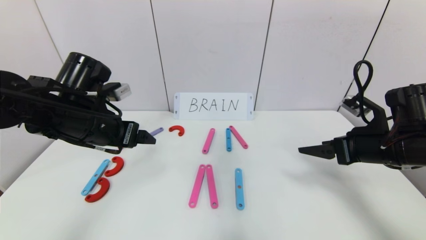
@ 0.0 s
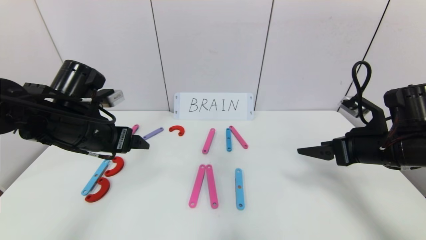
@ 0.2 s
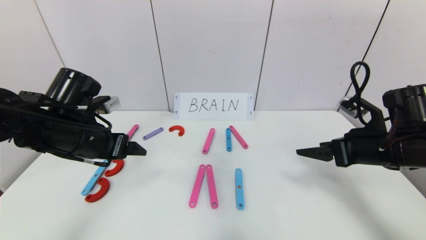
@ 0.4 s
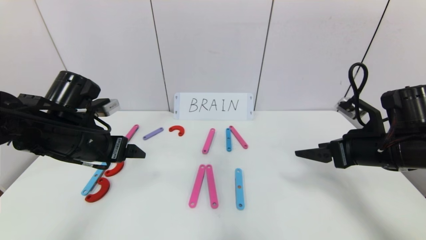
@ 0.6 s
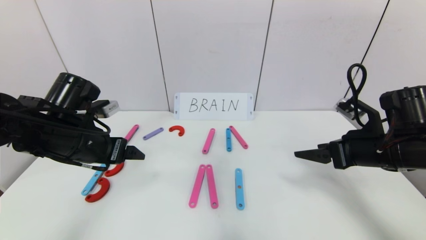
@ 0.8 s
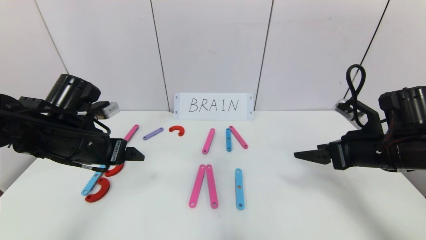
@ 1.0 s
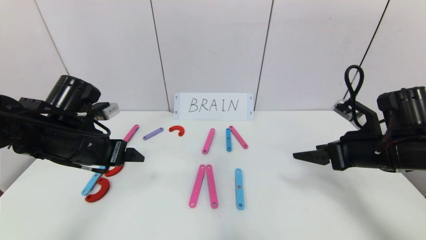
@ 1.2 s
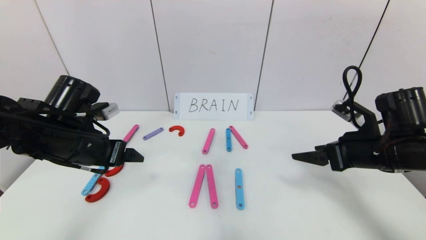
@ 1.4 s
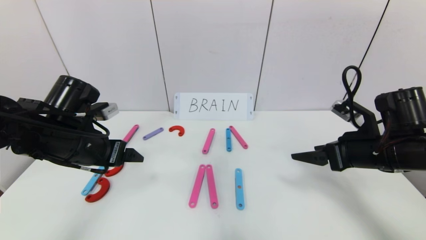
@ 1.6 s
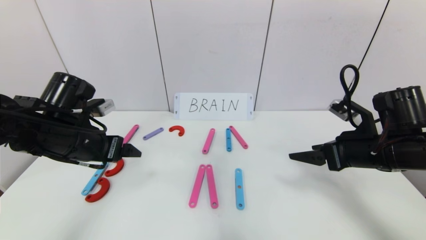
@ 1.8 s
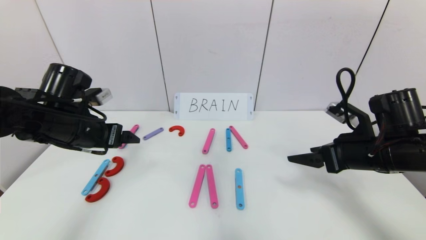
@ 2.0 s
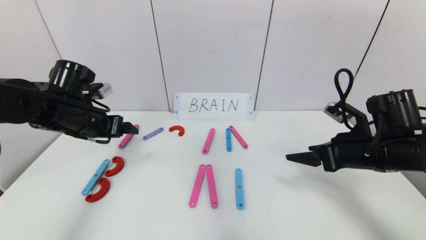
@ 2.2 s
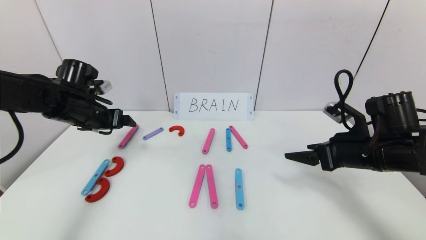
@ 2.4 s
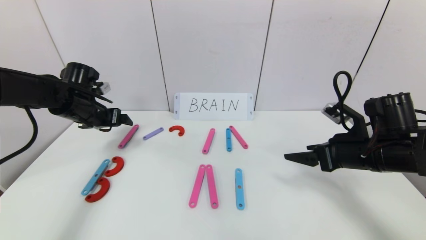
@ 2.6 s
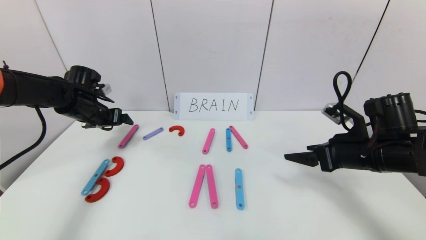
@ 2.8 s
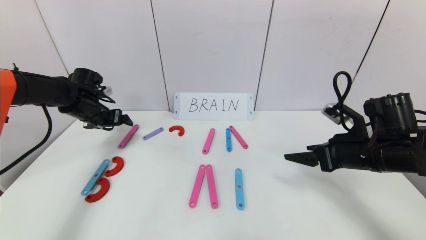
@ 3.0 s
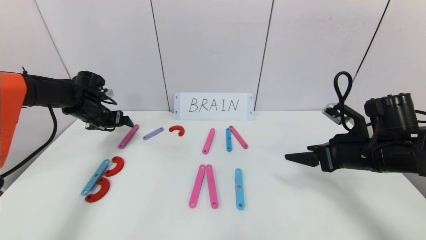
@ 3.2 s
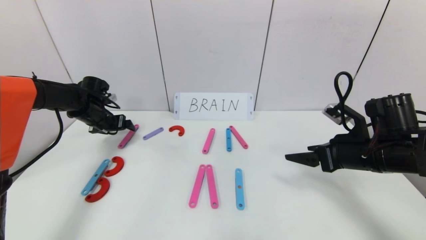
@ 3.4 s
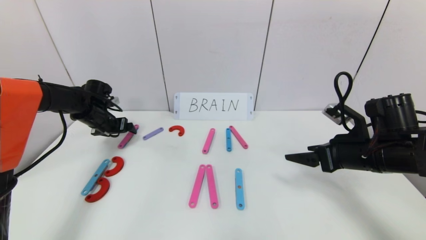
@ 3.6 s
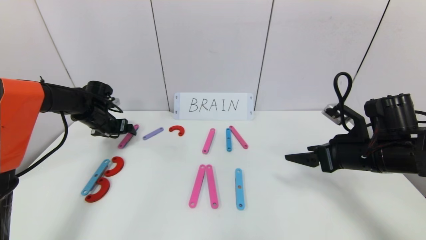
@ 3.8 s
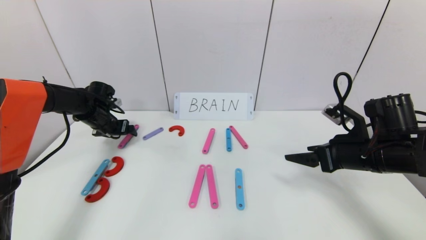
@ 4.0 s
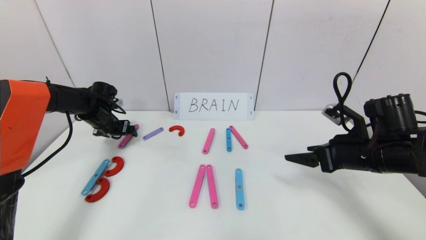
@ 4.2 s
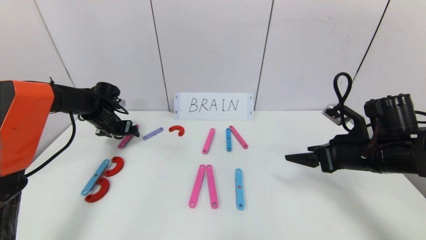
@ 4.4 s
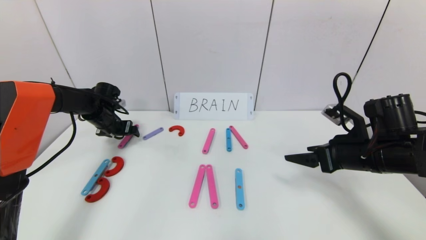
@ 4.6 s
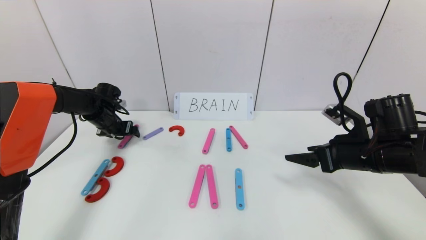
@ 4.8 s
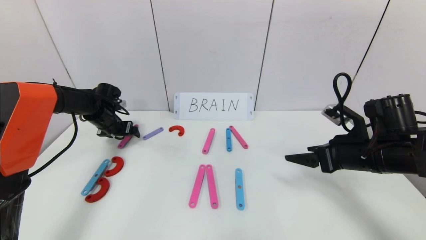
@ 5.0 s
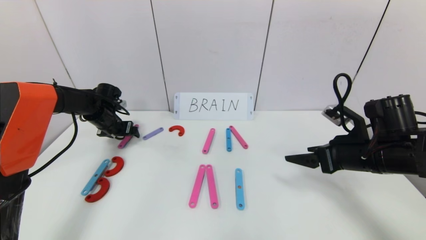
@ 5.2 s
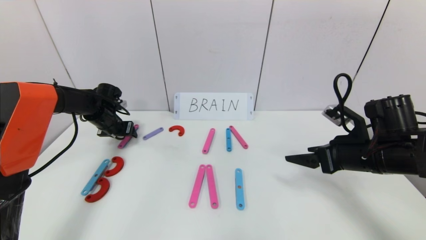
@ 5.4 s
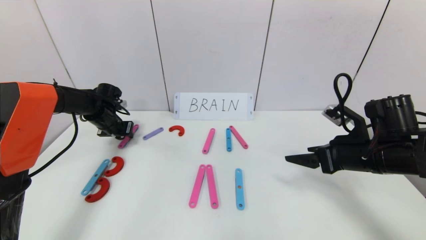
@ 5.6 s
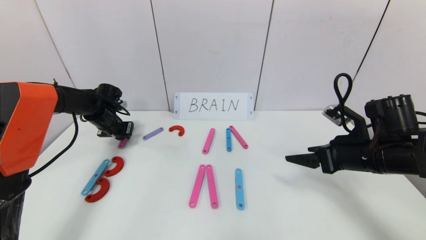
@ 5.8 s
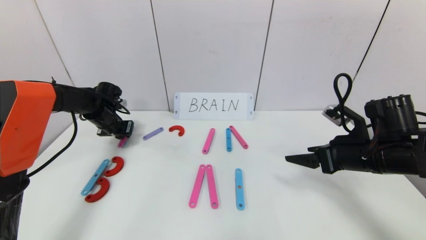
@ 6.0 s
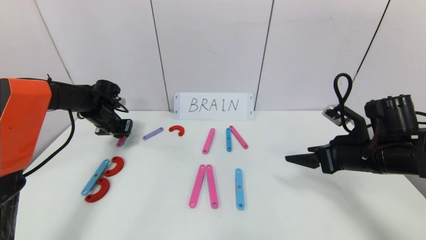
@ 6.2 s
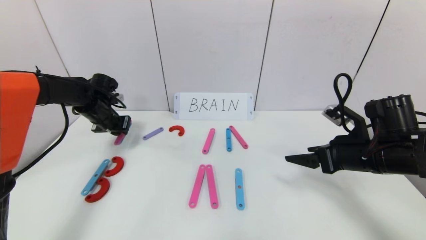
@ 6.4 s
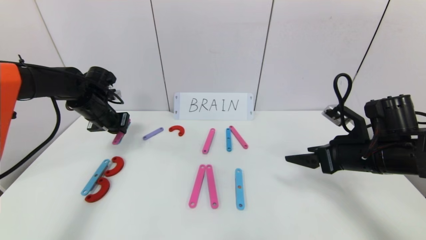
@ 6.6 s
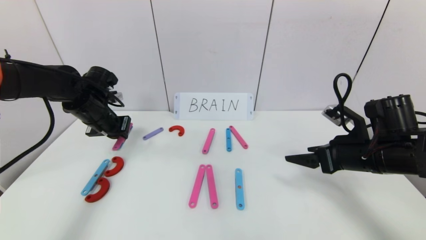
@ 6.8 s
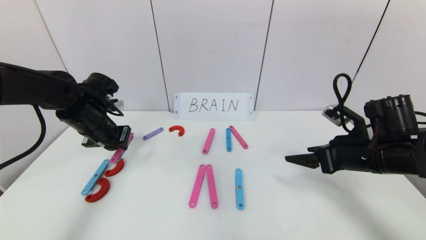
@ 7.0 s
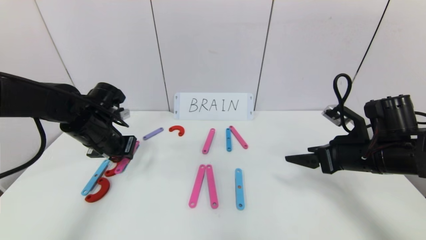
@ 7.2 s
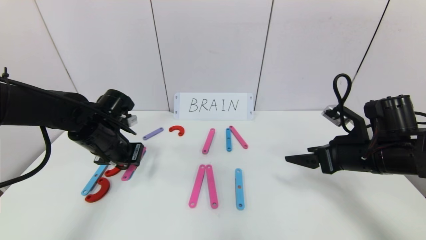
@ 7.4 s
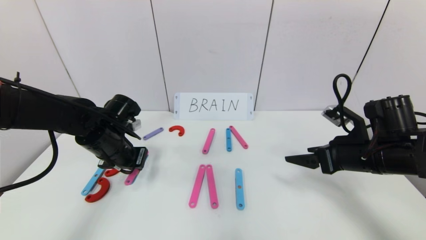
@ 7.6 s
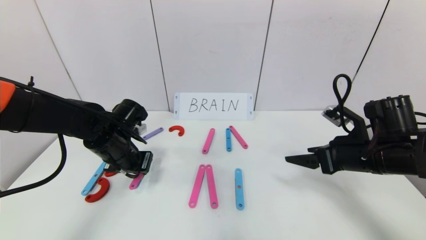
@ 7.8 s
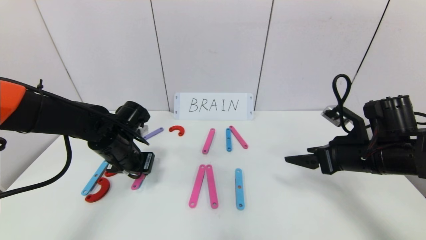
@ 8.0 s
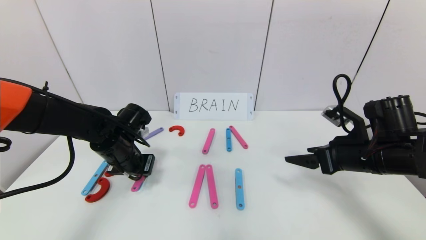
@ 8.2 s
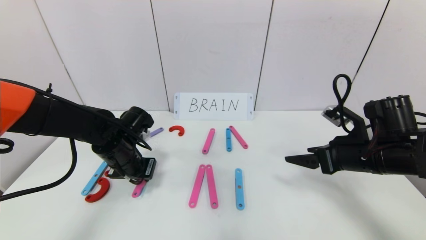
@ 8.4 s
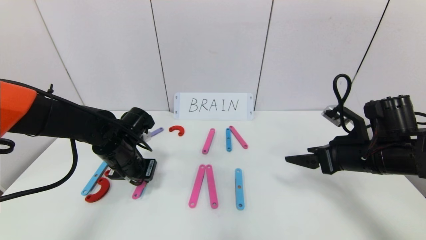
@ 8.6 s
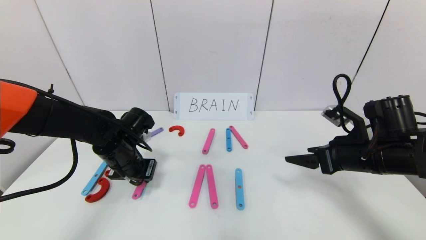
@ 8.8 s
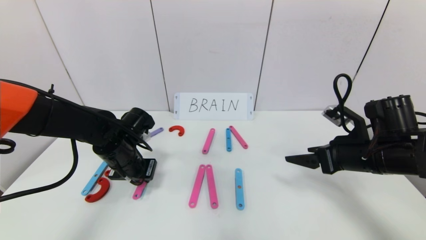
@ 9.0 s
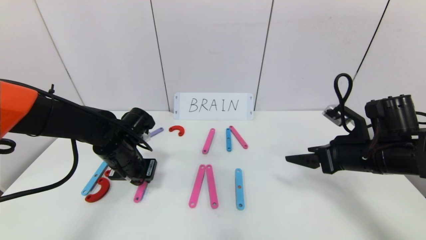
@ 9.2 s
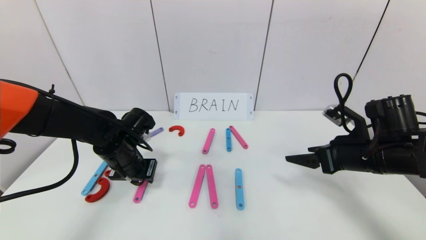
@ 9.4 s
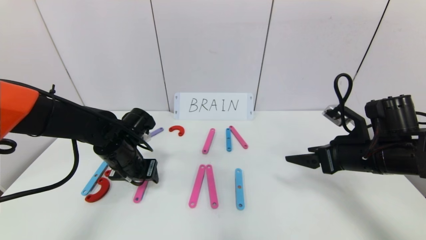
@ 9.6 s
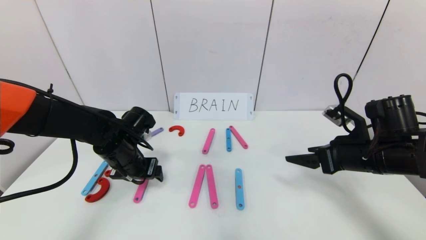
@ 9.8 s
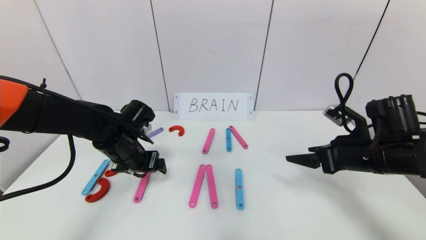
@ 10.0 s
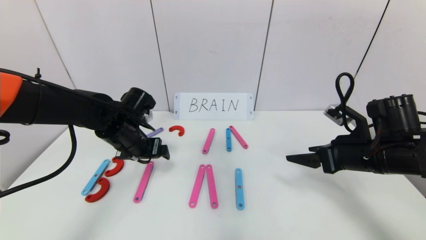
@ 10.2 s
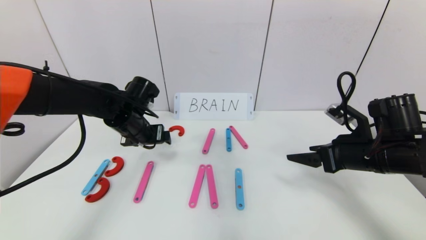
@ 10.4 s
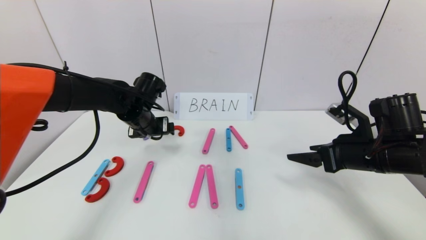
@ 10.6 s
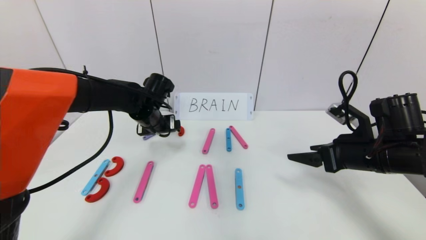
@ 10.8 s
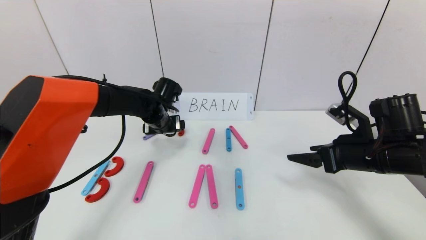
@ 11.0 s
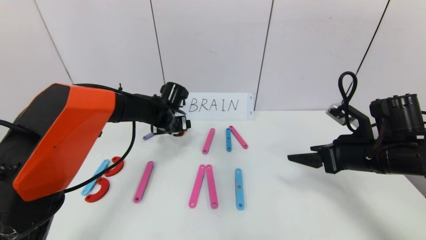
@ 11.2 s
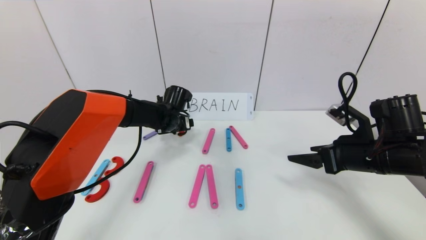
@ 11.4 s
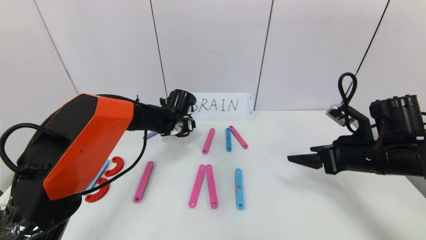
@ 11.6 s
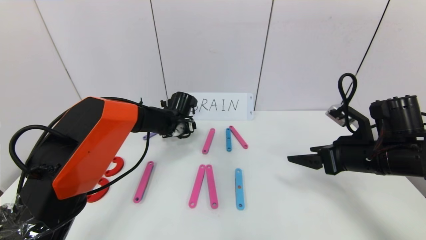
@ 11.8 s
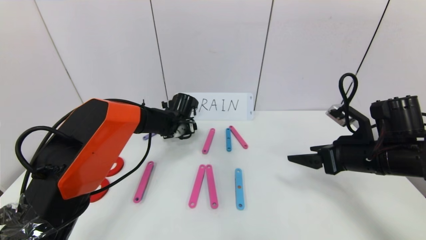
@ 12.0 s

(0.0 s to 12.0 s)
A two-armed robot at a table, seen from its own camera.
Task of the whole recording: rearrange the word baai as brain.
0.0 s - 1.6 s: There are only small adjustments of the grippers.
1.6 s - 3.0 s: The left gripper moves forward and to the left, about 20 cm.
3.0 s - 4.4 s: The left gripper ends up roughly 5 cm from where it was.
4.4 s - 6.0 s: The left gripper closes up.
6.0 s - 7.6 s: The left gripper goes approximately 20 cm backward and to the right.
7.6 s - 9.0 s: The grippers stay close to where they were, moving slightly.
9.0 s - 10.4 s: The left gripper shifts roughly 5 cm upward and forward, and opens up.
10.4 s - 12.0 s: The left gripper is displaced forward, downward and to the right by roughly 15 cm.

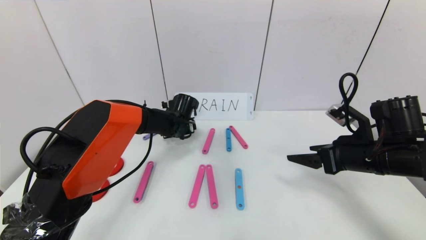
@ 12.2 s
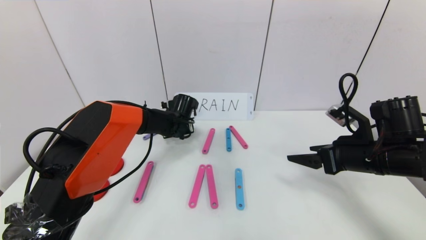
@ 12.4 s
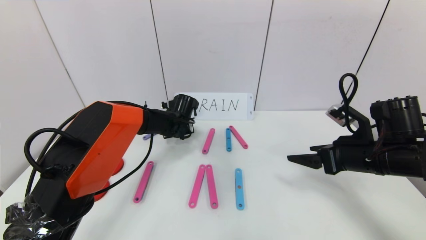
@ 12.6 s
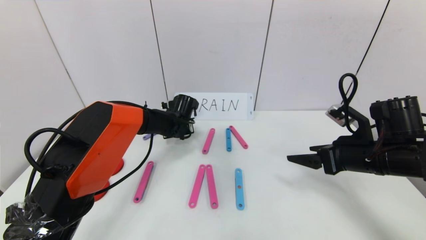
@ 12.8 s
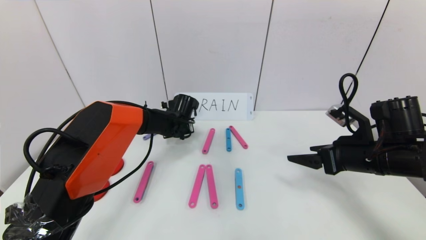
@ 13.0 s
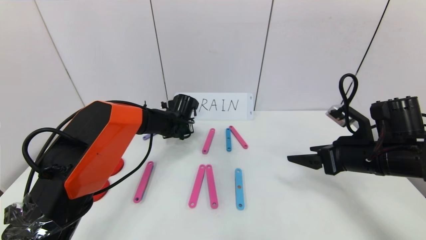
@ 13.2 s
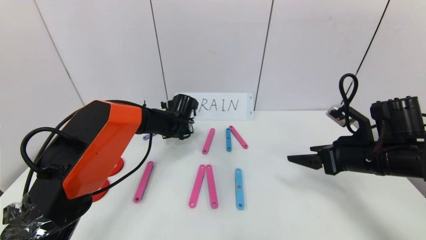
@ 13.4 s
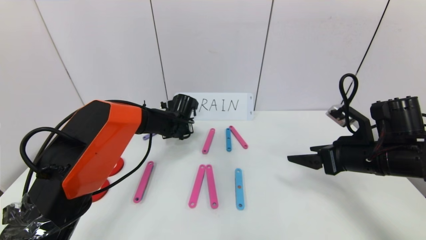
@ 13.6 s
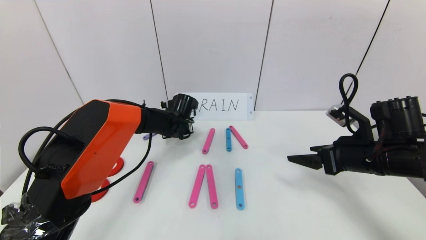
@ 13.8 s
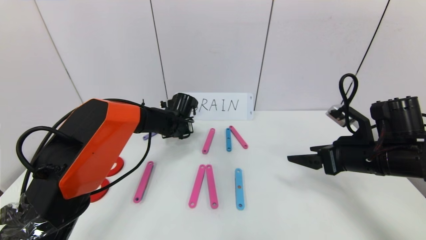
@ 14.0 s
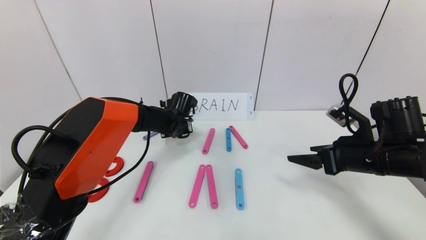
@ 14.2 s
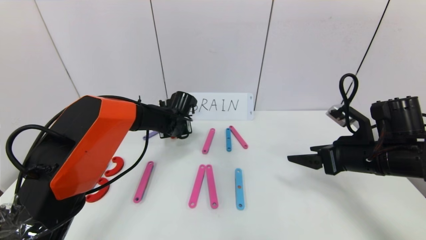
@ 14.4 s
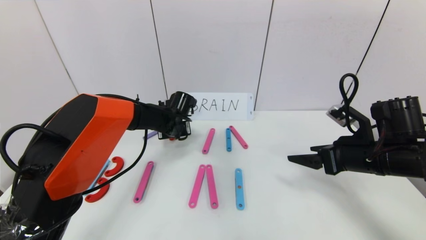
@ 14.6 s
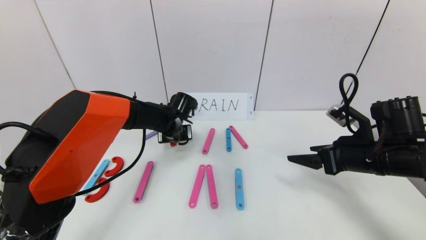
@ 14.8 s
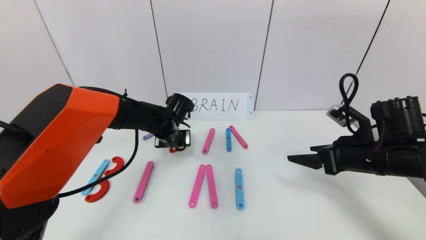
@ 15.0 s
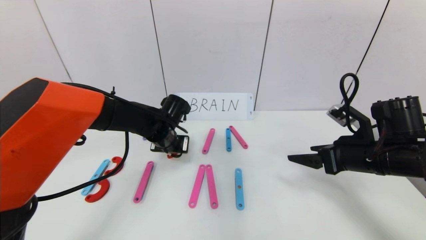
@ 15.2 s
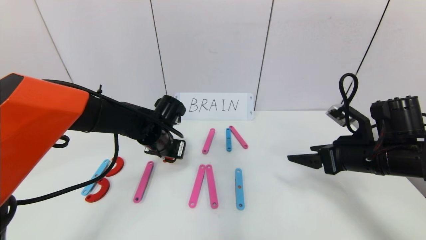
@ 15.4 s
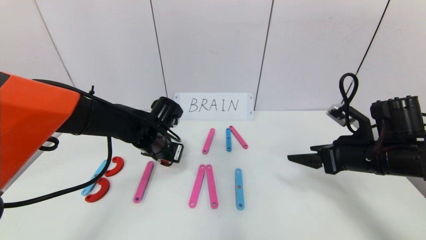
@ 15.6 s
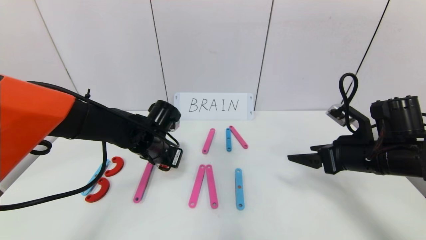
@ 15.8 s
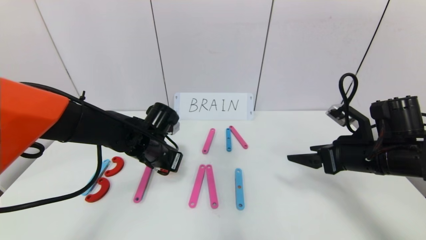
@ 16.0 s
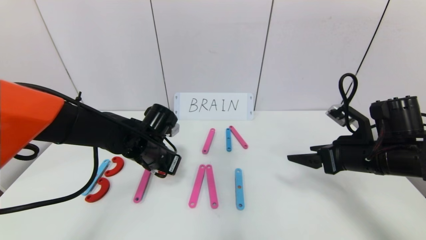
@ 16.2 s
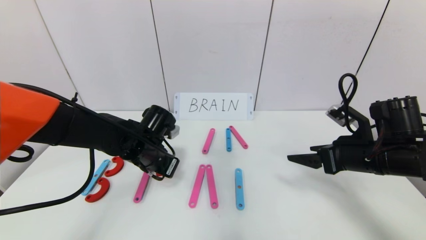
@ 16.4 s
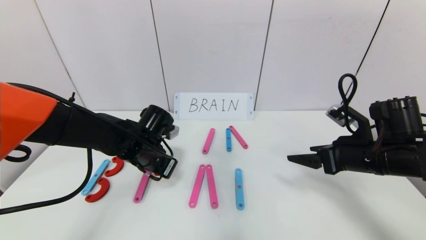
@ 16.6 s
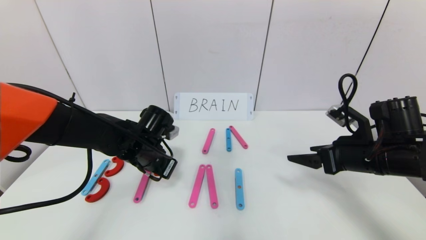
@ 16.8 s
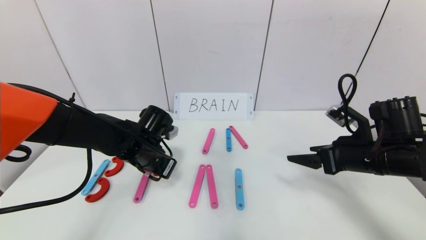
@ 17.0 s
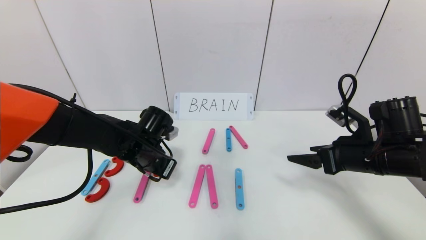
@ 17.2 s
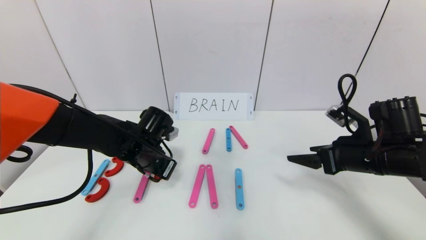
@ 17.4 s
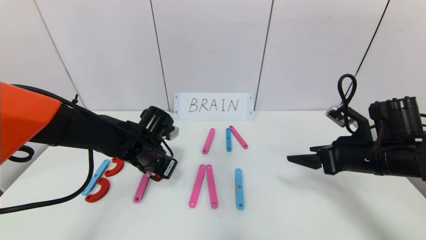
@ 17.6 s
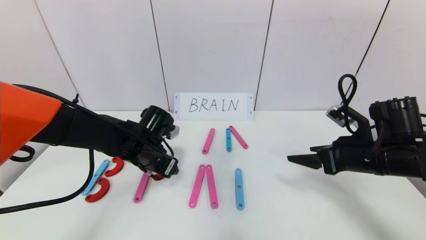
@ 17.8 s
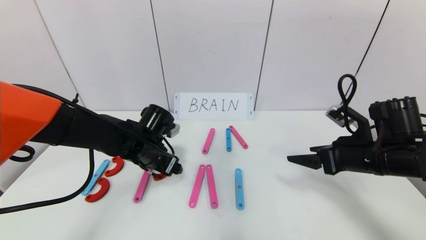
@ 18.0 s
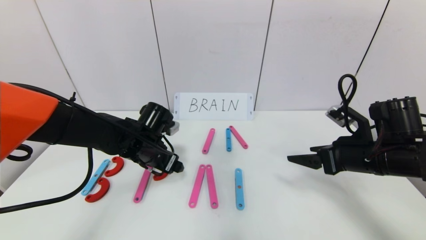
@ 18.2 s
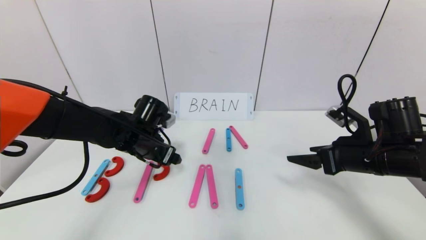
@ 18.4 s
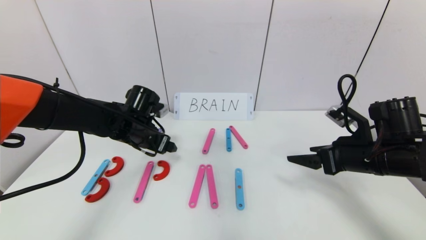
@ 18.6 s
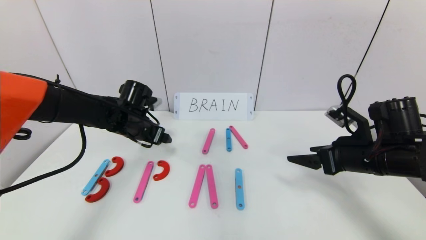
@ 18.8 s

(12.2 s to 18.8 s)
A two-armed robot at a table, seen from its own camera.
Task of the whole recording: rearrange the word baai as brain.
12.2 s - 13.8 s: The left gripper closes up.
13.8 s - 15.4 s: The left gripper is displaced backward by approximately 10 cm.
15.4 s - 17.2 s: The grippers stay close to where they were, moving slightly.
17.2 s - 18.8 s: The left gripper goes some 5 cm forward, and opens its fingers.
